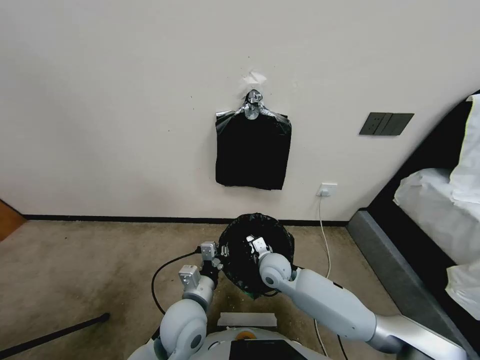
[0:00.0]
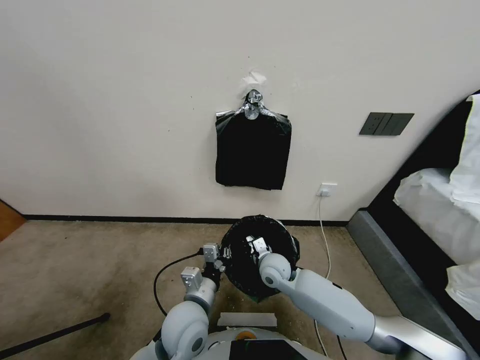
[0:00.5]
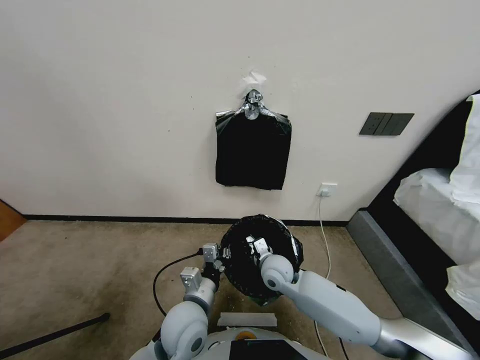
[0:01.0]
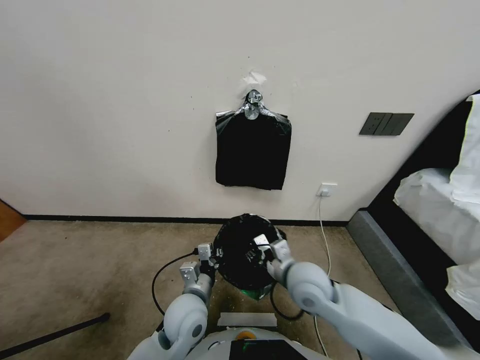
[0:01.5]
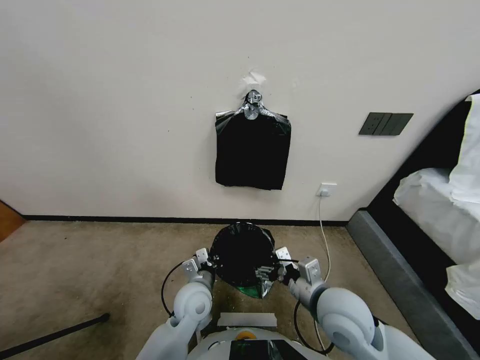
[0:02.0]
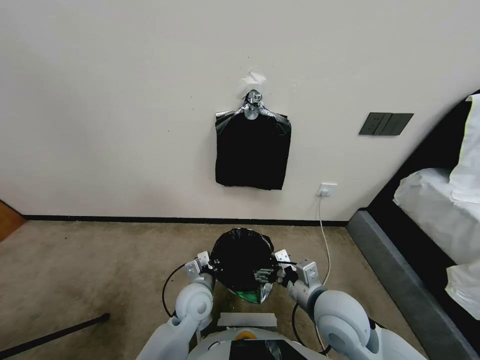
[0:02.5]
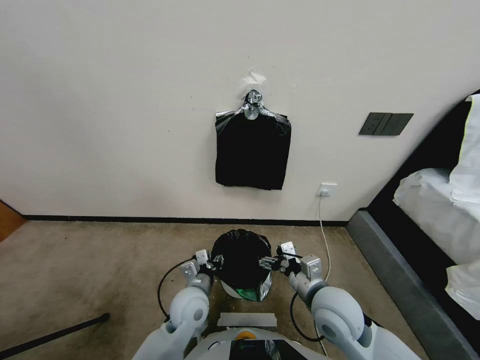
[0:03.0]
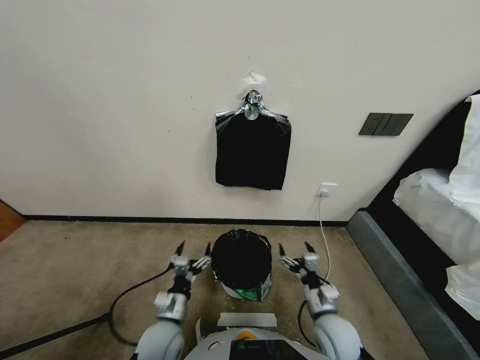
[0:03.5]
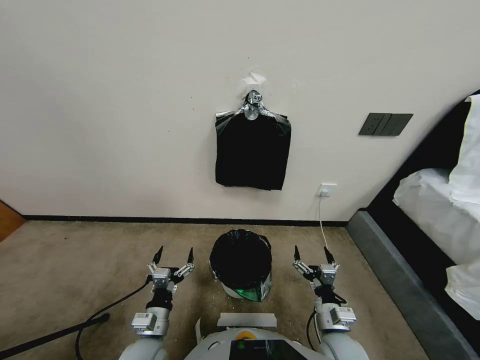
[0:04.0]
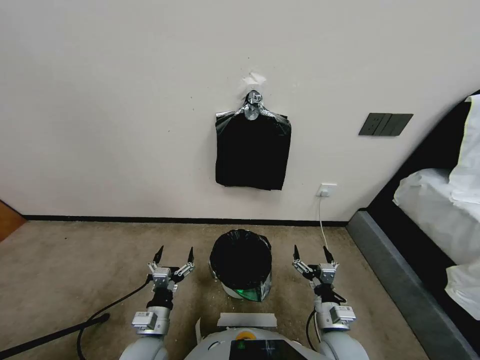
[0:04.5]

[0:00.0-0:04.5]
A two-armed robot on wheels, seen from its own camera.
Task of the whole recording: Place a trash bag onto the trash bin.
0:00.0 to 0:02.0: The left gripper moves forward, roughly 5 cm. Meanwhile the right gripper is displaced backward, upward and to the right by roughly 20 cm, and opens its fingers.
0:02.0 to 0:04.5: The left gripper is displaced backward and to the left by about 15 cm, and opens; the right gripper moves downward, roughly 15 cm.

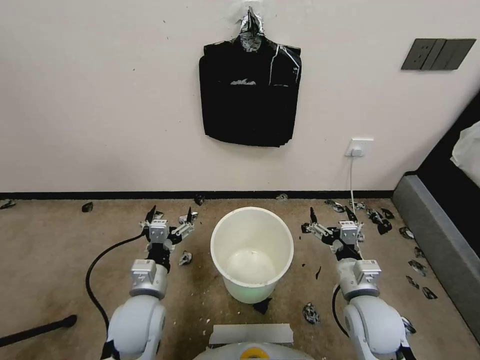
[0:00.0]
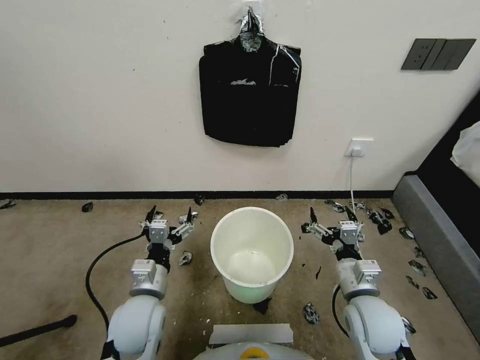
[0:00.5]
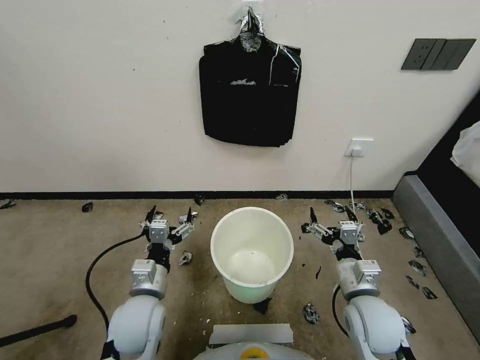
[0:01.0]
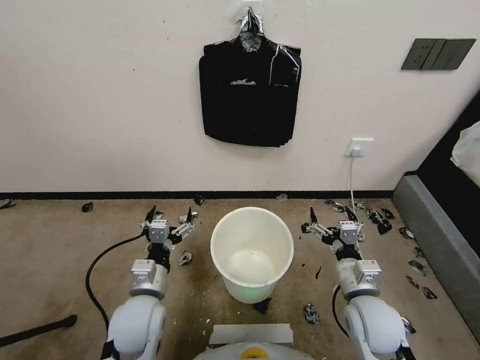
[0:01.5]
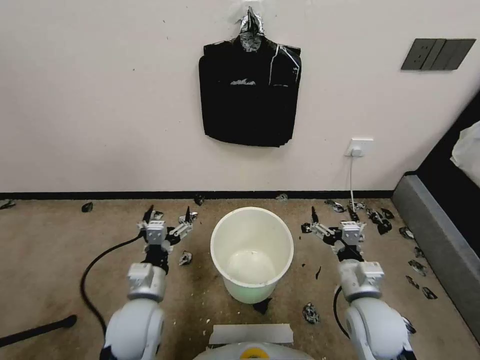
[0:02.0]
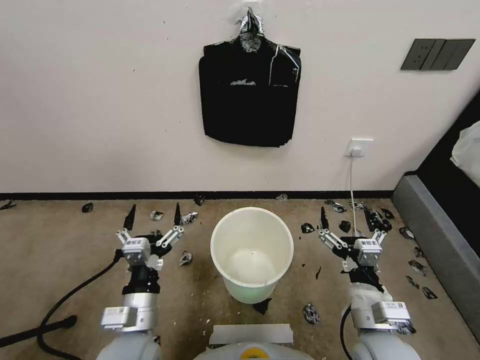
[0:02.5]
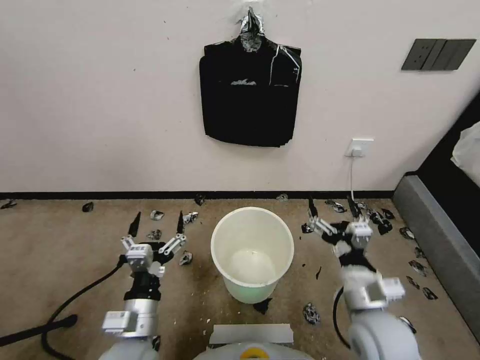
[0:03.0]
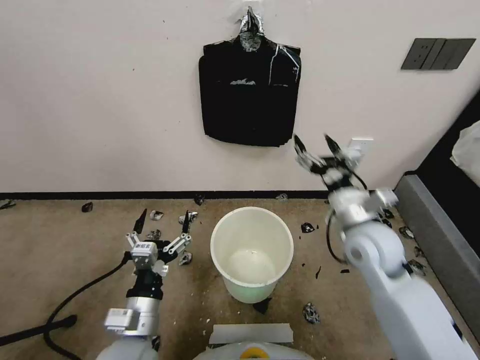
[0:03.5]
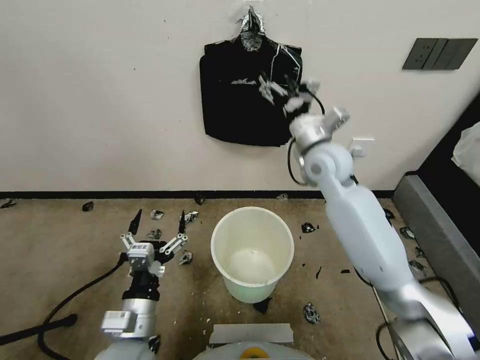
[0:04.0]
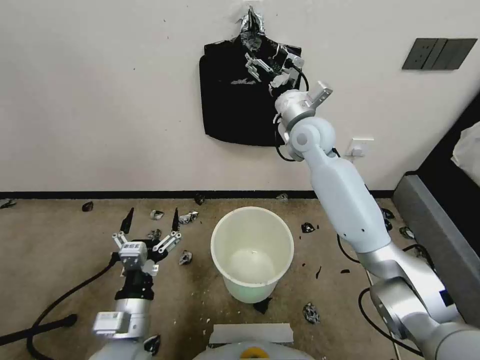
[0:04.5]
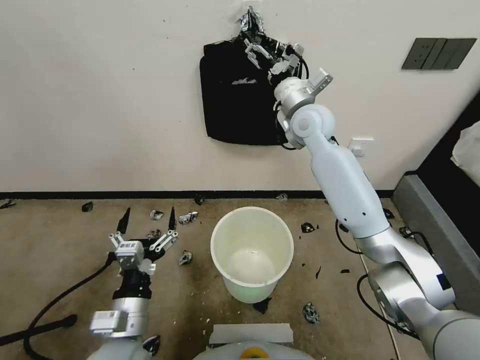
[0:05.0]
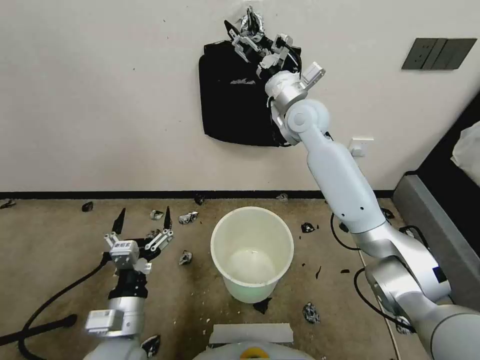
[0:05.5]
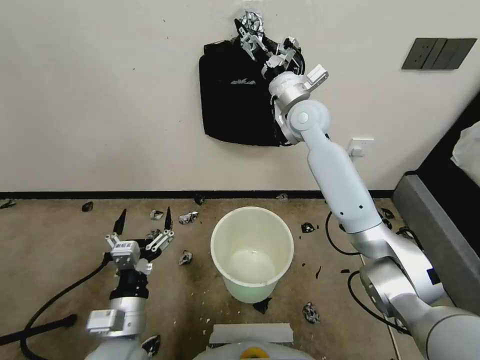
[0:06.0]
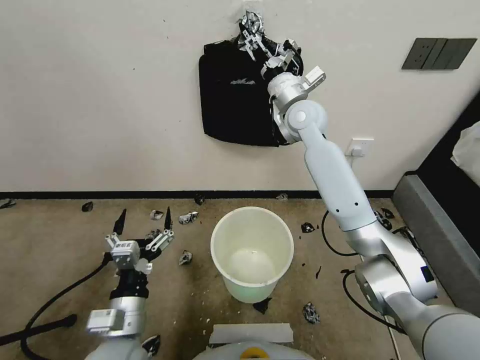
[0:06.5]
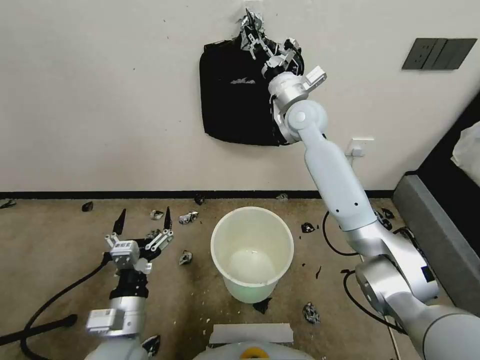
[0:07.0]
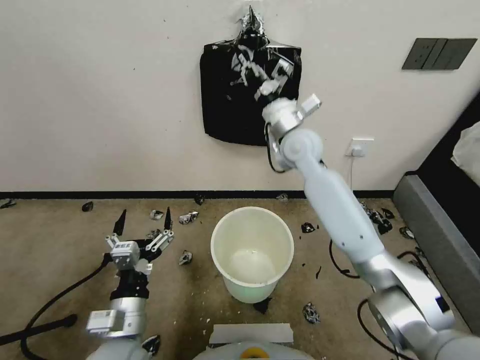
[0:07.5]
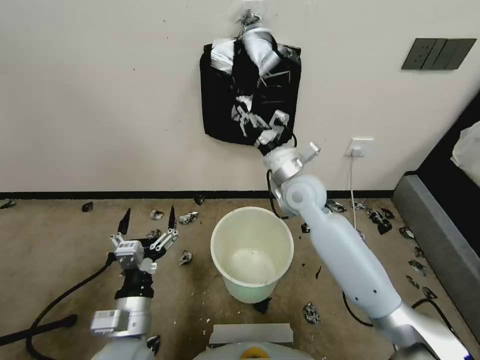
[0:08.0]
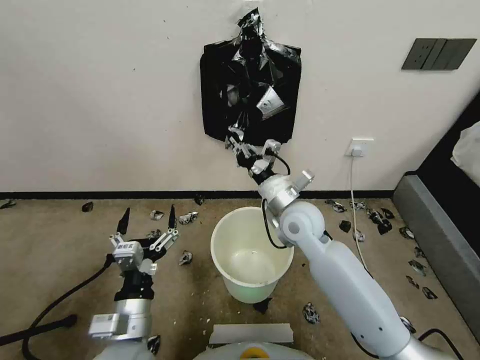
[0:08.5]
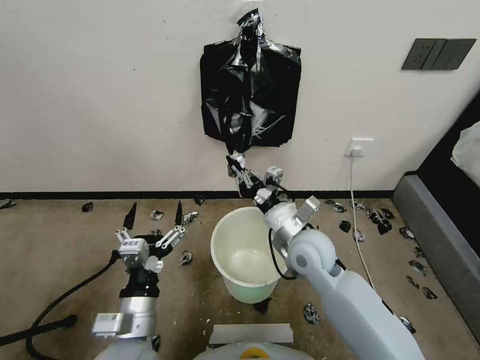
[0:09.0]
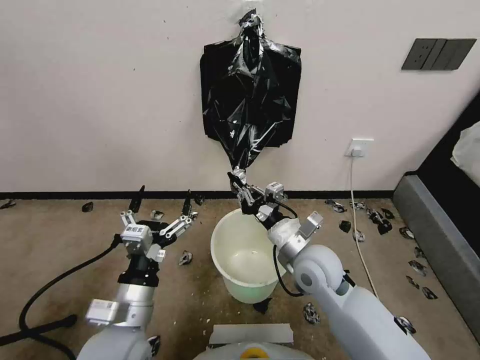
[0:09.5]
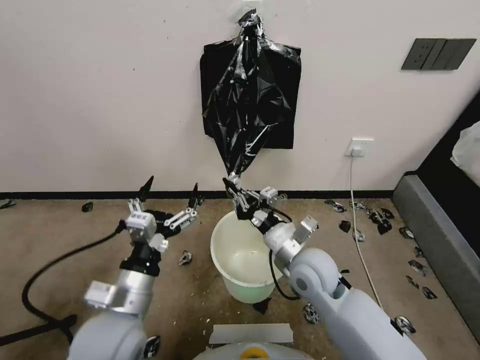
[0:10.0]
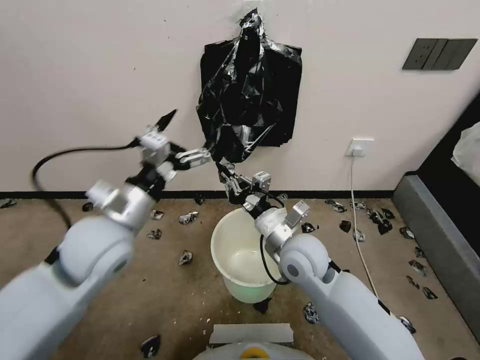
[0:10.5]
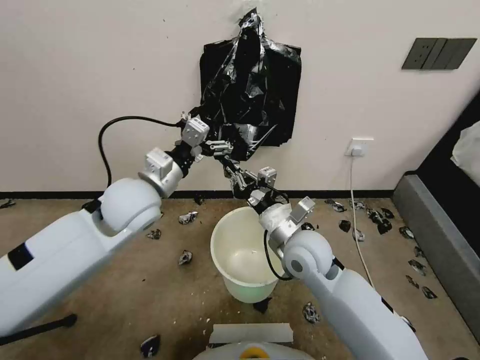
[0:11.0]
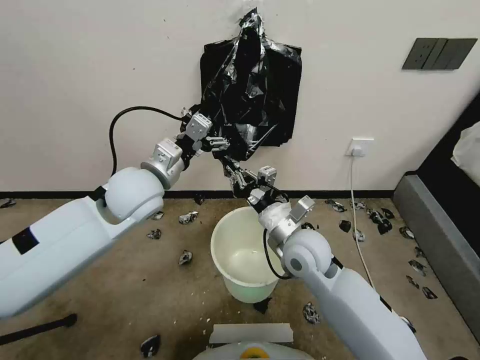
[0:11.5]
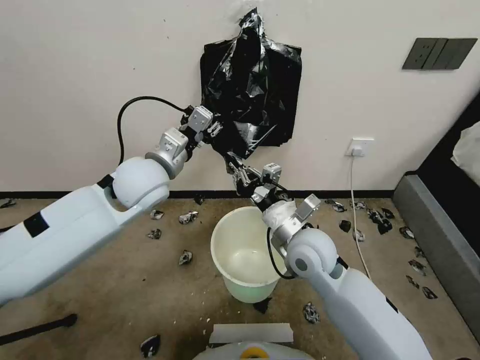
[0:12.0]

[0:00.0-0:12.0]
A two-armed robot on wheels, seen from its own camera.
Task of the whole recording: Place a trash bag onto the trash bin.
0:02.0 to 0:04.0: The left gripper is displaced backward by roughly 5 cm, while the right gripper shifts roughly 30 cm forward and upward.
0:04.0 to 0:06.0: The right gripper heads forward and upward, covering roughly 10 cm.
0:06.0 to 0:08.0: The right gripper goes about 15 cm downward and backward, and closes.
0:08.0 to 0:10.0: The left gripper heads upward, covering roughly 5 cm; the right gripper heads backward and downward, covering some 15 cm.
0:10.0 to 0:12.0: The left gripper heads forward and upward, covering some 25 cm, and closes up.

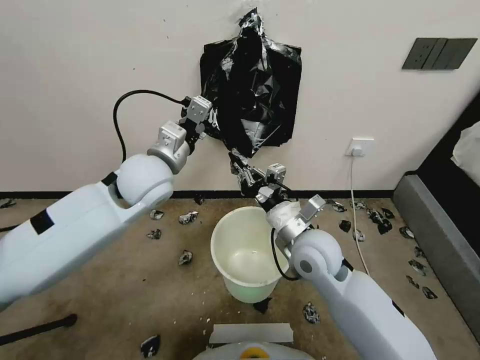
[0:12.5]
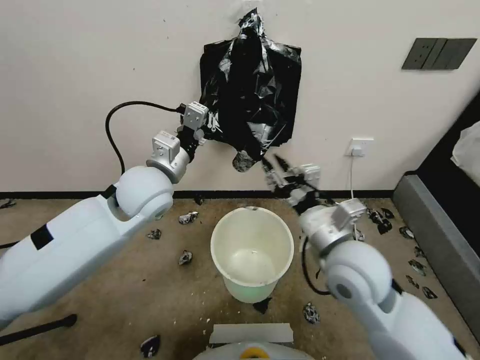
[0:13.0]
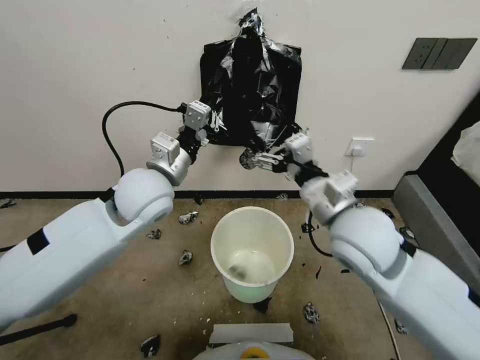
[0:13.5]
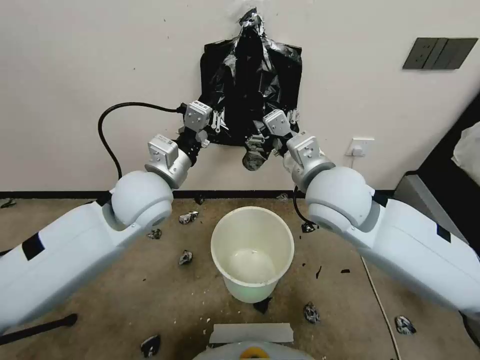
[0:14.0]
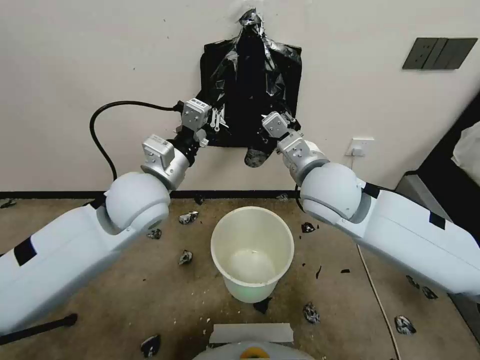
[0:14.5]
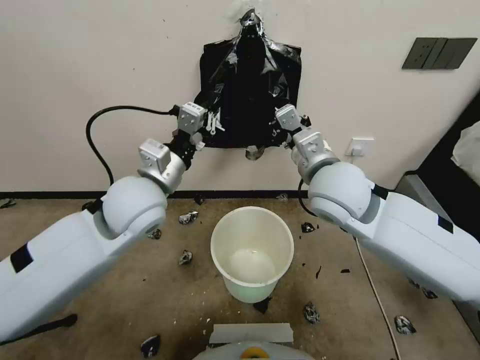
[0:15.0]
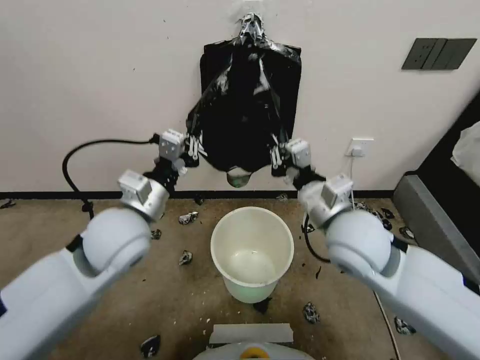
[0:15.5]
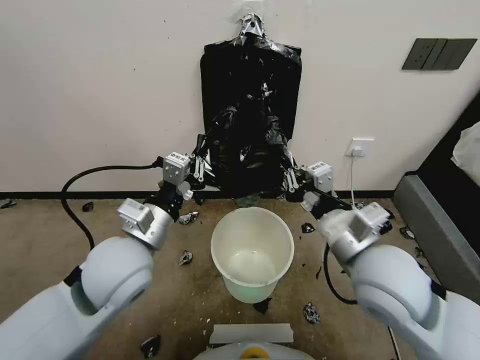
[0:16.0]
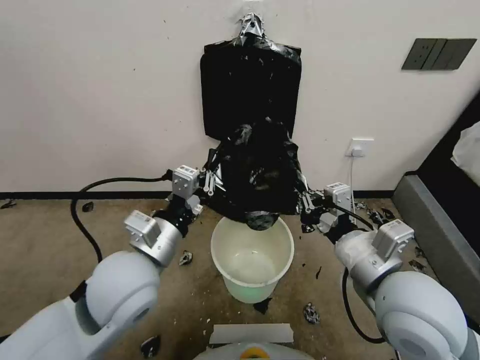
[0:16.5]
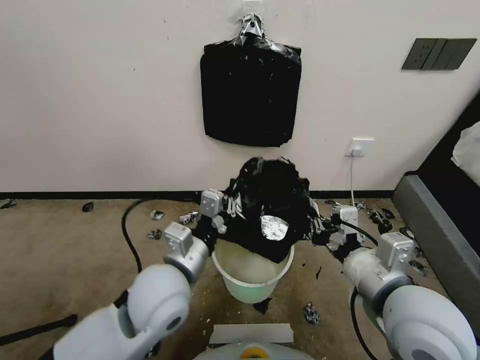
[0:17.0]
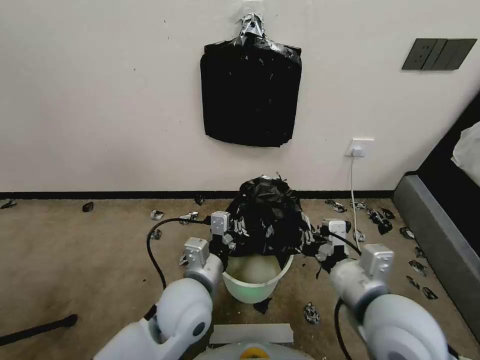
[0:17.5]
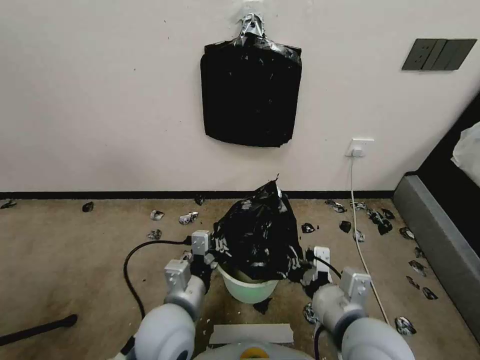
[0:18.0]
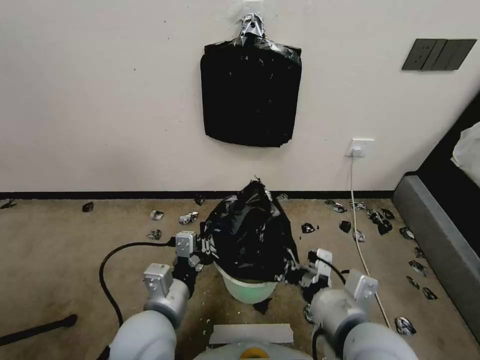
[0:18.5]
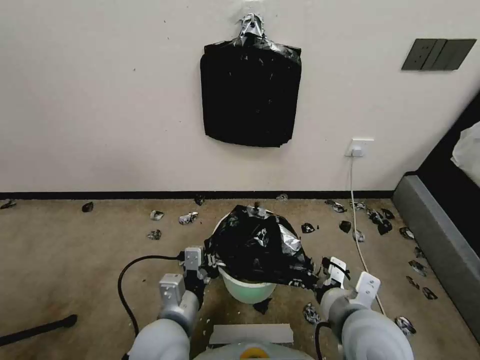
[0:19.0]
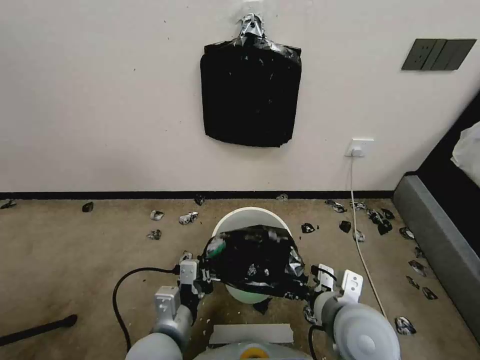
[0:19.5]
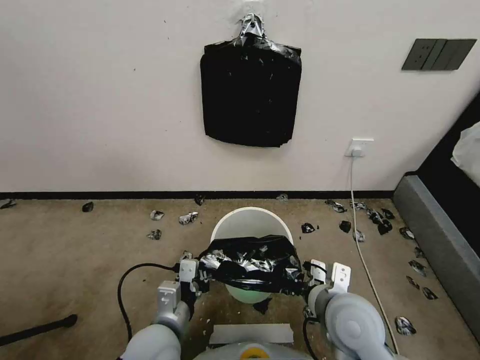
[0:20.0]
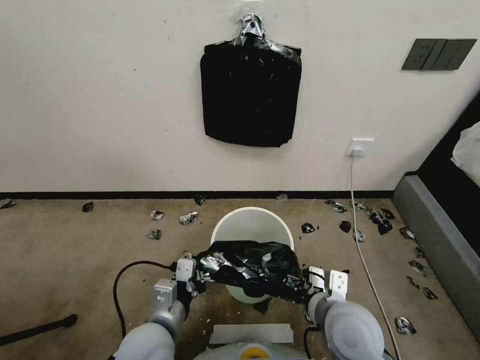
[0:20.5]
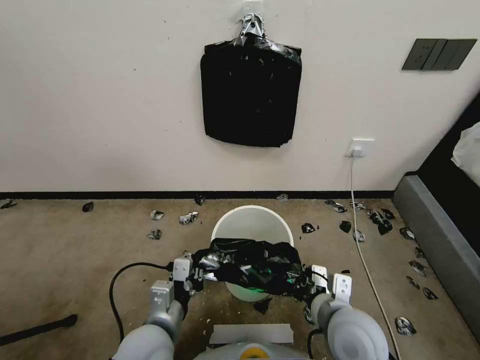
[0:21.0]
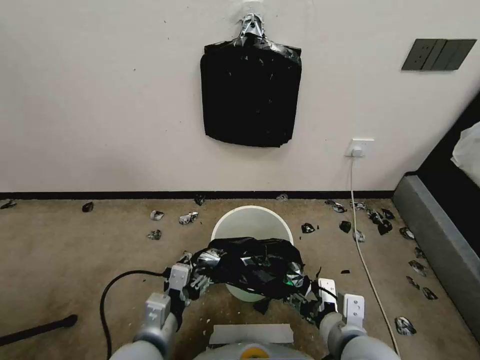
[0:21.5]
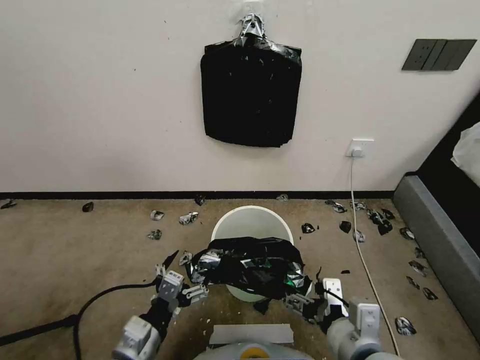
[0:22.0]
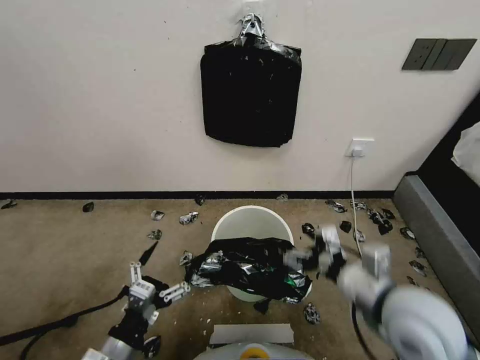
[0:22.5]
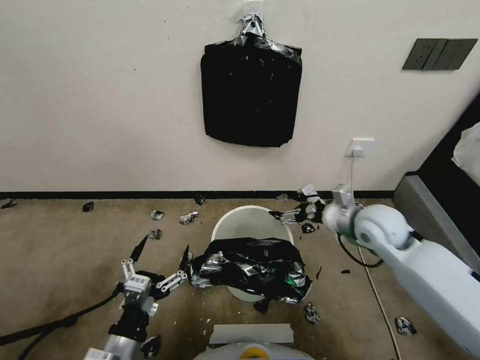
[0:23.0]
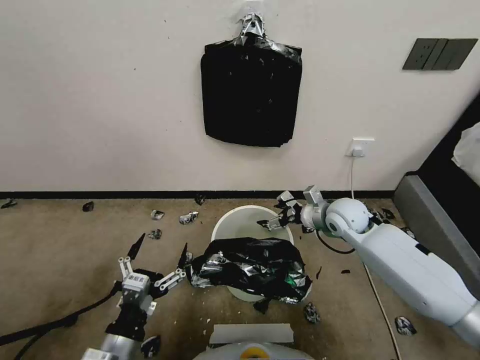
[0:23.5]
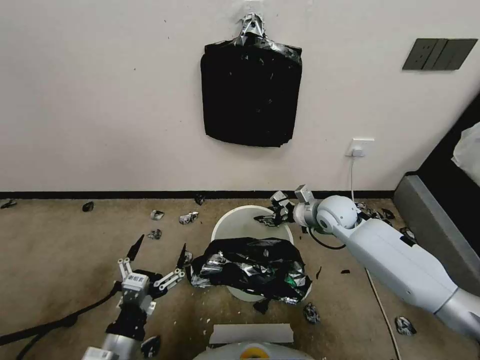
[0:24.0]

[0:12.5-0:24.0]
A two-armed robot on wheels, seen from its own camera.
Task of the whole recording: Place a trash bag onto the trash bin.
0:12.5 to 0:14.5: The right gripper is displaced upward by some 15 cm, and opens its fingers; the left gripper travels backward by roughly 5 cm.
0:14.5 to 0:16.5: The right gripper travels backward and to the right by roughly 20 cm, and closes up. Meanwhile the left gripper travels backward and downward by some 15 cm.
0:16.5 to 0:18.5: The left gripper heads downward and backward, covering about 10 cm; the right gripper travels downward by about 5 cm.
0:18.5 to 0:20.0: The left gripper shifts about 5 cm downward. The right gripper goes about 10 cm downward and forward.
0:20.0 to 0:22.0: The right gripper shifts approximately 10 cm backward, and opens its fingers. Meanwhile the left gripper goes roughly 10 cm to the left and backward, and opens up.
0:22.0 to 0:24.0: The right gripper moves forward, some 35 cm, and closes.
